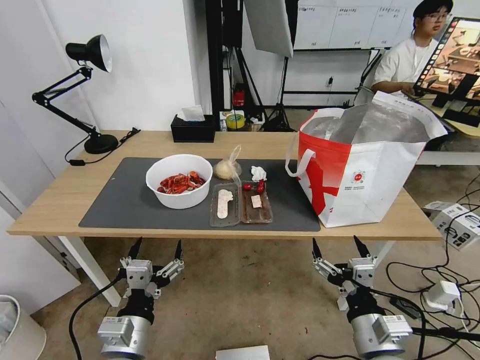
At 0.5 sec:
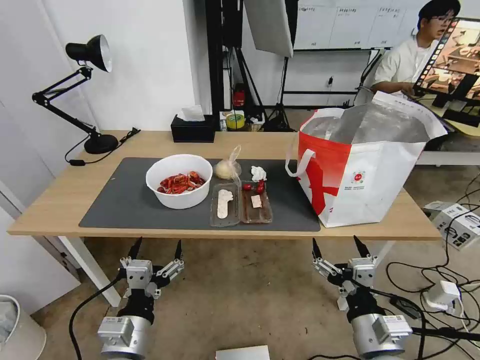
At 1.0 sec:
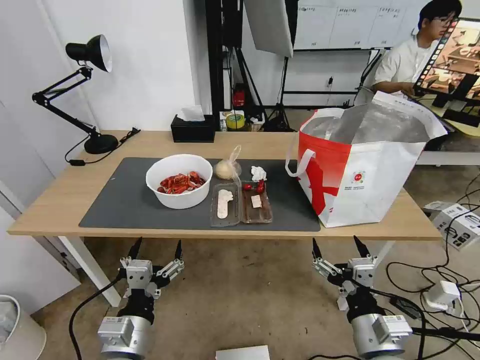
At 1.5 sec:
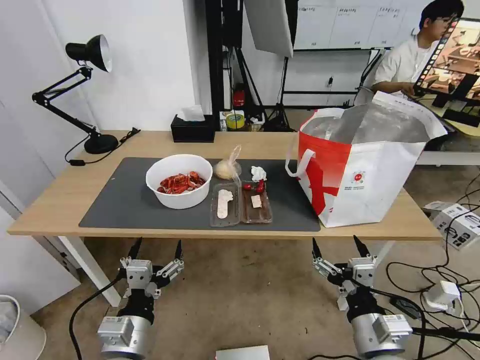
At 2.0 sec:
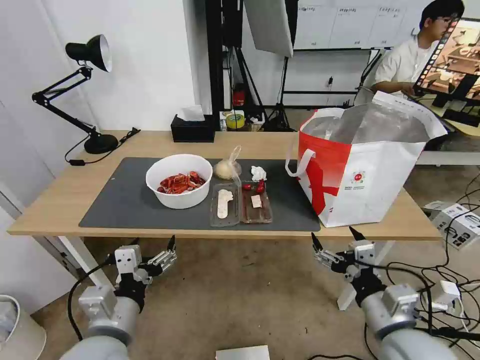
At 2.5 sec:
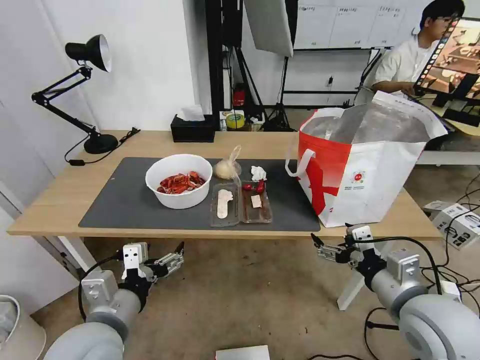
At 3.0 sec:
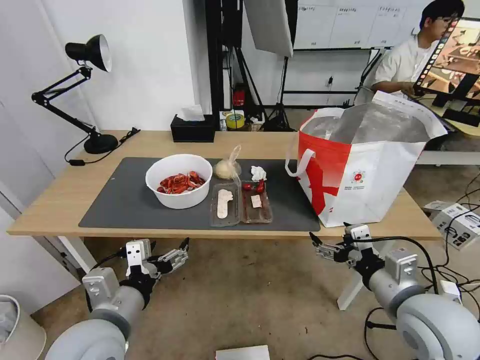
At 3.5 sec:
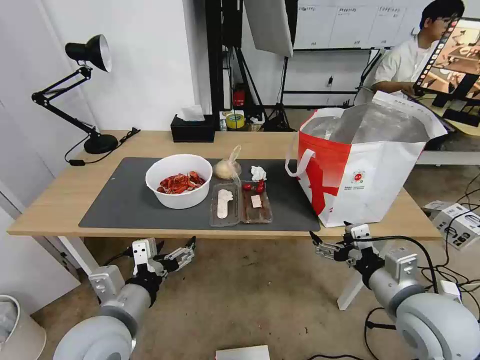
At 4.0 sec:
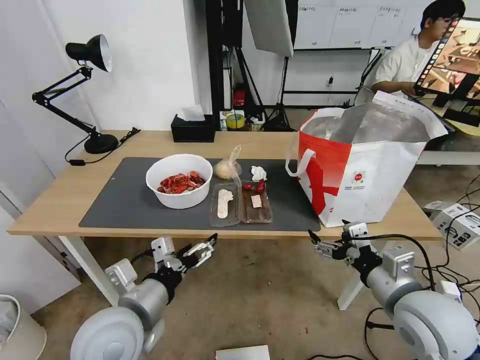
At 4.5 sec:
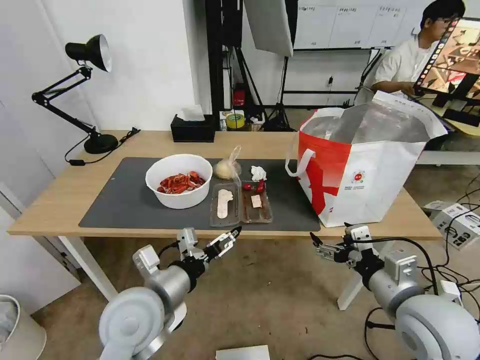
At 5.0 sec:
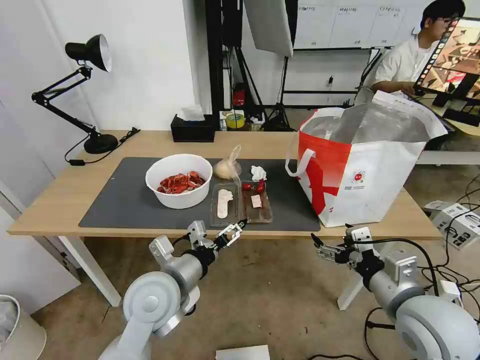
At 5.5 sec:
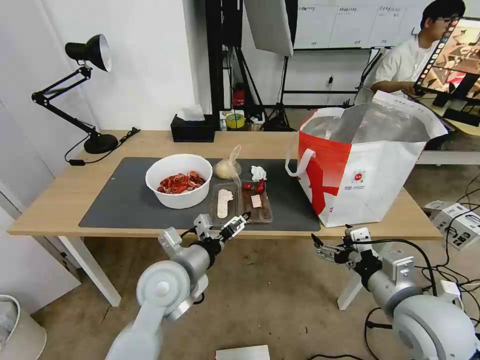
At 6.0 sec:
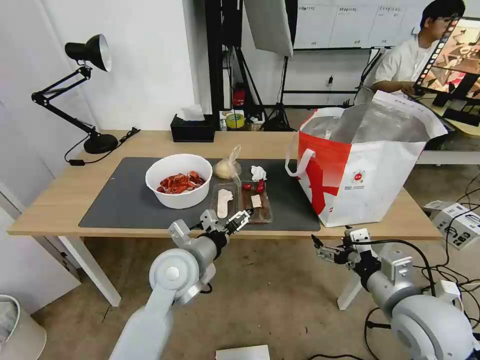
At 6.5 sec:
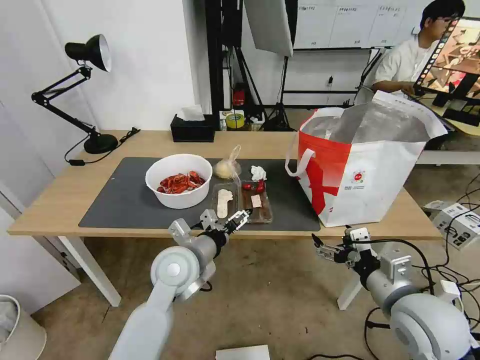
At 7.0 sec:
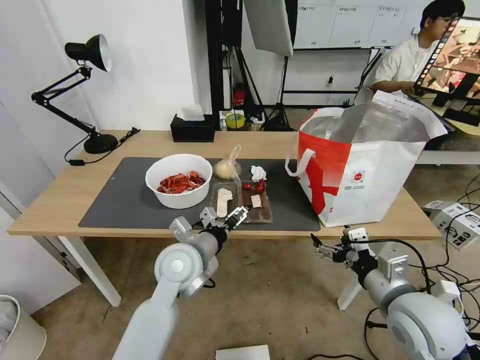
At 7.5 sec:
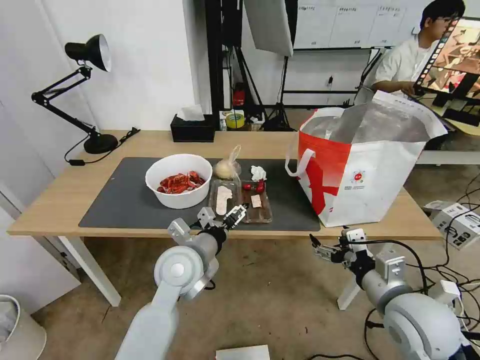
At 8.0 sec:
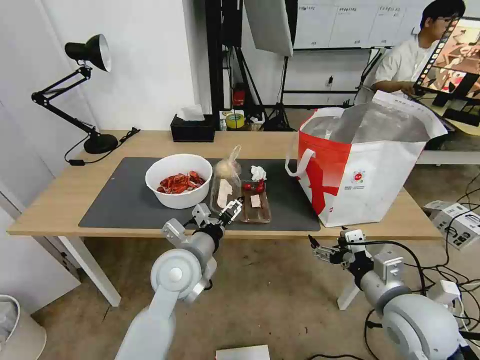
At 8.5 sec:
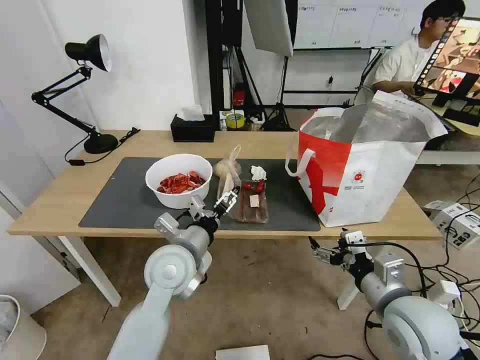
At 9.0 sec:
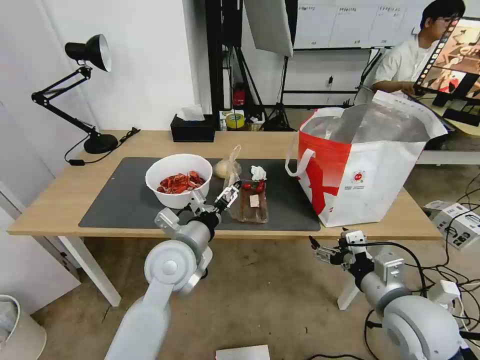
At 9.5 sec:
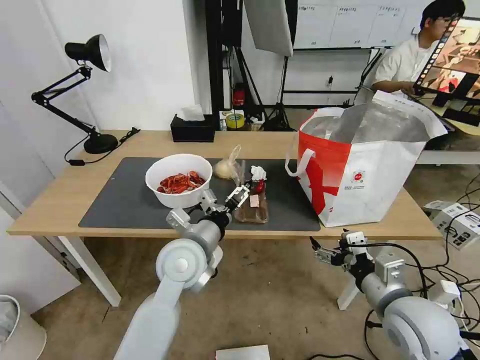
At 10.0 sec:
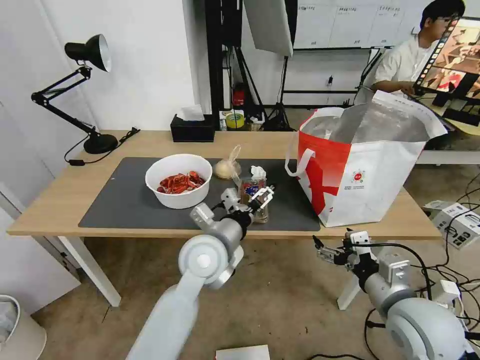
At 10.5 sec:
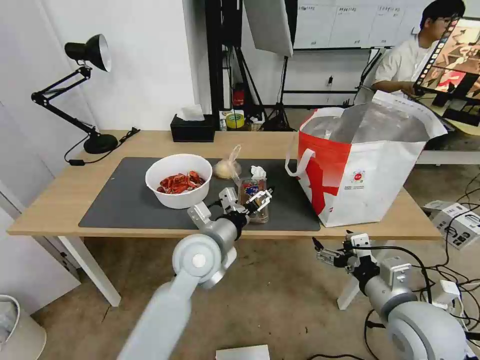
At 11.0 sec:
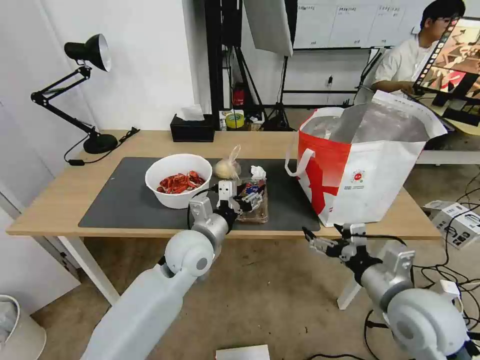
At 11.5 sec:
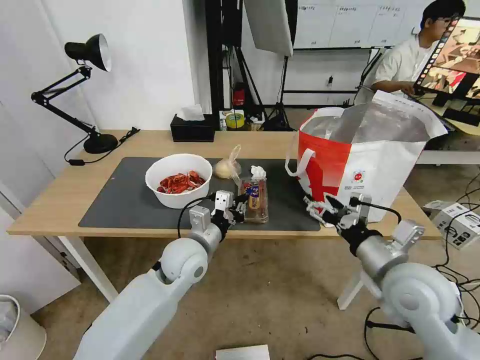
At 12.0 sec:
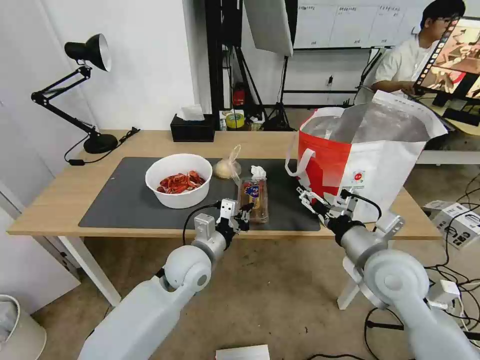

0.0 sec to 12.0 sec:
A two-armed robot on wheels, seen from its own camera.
Task of the whole recording: Pick up the trash from the table and place it into the takeout bag.
2.0 sec to 4.0 sec: The left gripper changes place by approximately 5 cm, while the right gripper changes place by roughly 5 cm.
4.0 sec to 6.0 sec: The left gripper travels forward and to the right by some 15 cm.
6.0 sec to 8.0 sec: The grippers make only small movements.
8.0 sec to 10.0 sec: The left gripper moves to the right, roughly 5 cm.
10.0 sec to 12.0 sec: The left gripper shifts roughly 5 cm downward, and closes up, while the right gripper shifts approximately 10 cm forward.

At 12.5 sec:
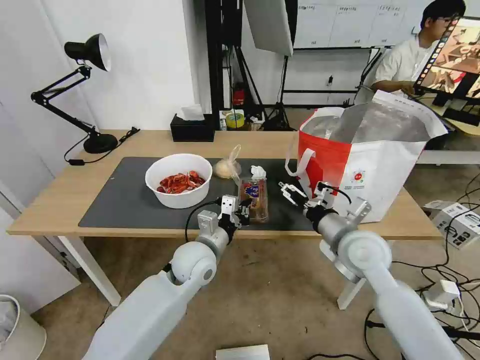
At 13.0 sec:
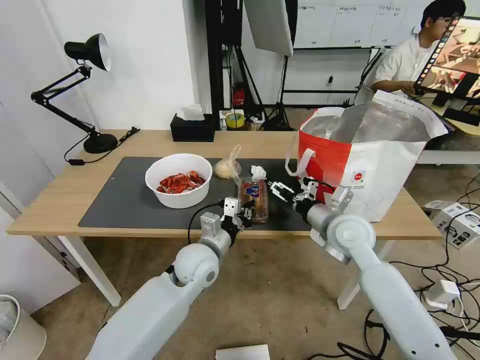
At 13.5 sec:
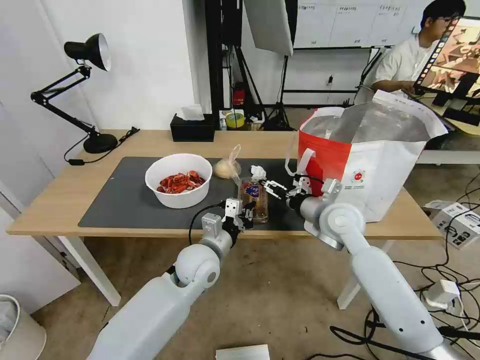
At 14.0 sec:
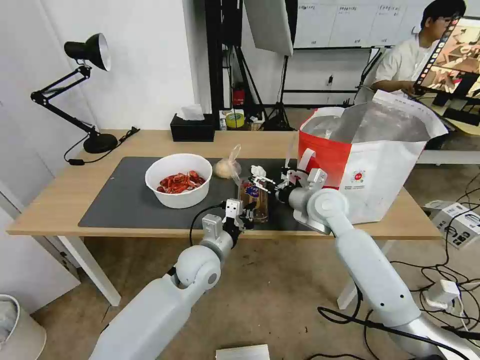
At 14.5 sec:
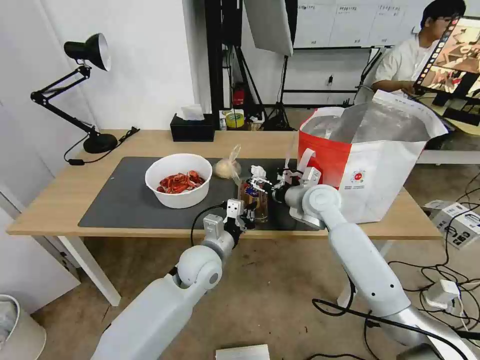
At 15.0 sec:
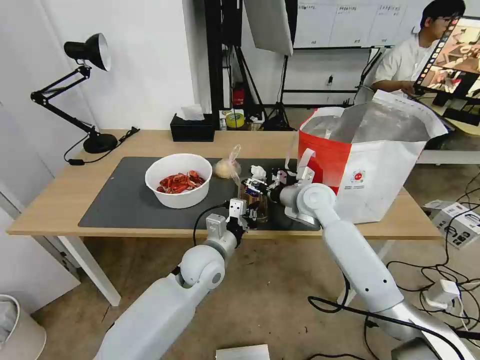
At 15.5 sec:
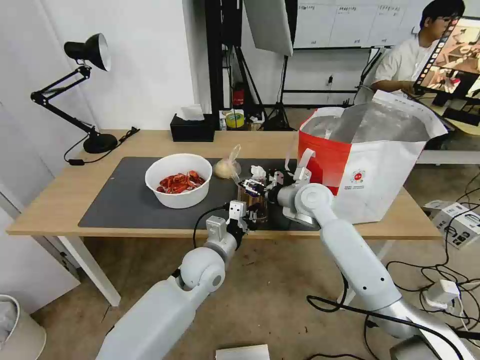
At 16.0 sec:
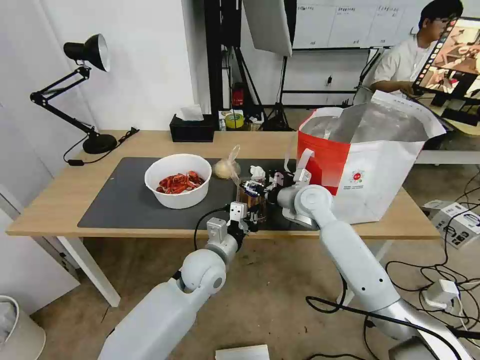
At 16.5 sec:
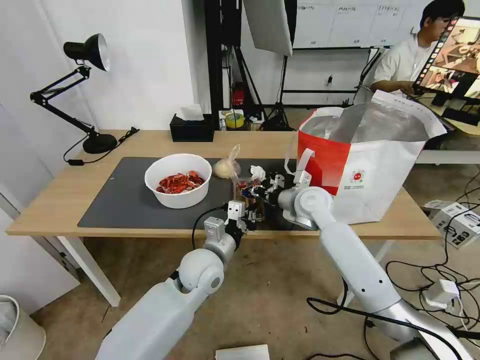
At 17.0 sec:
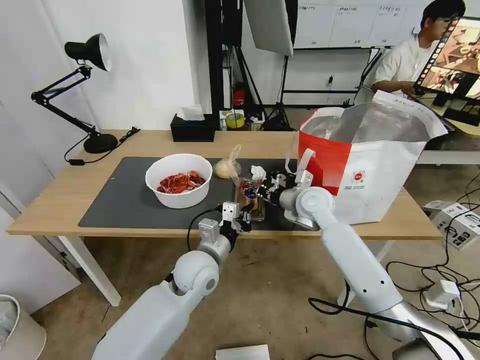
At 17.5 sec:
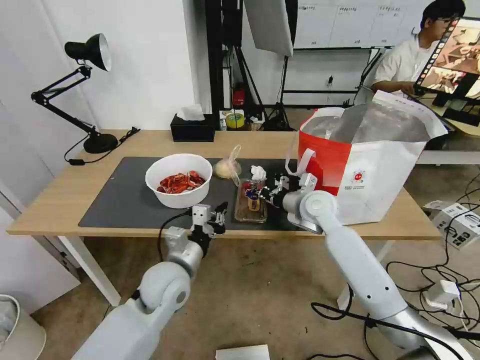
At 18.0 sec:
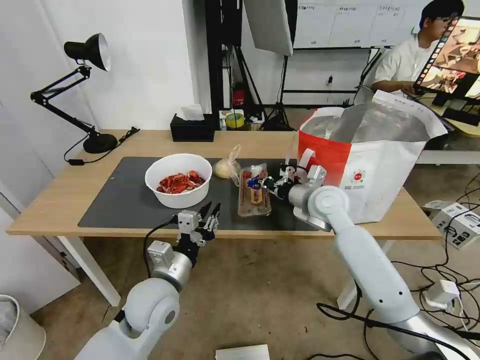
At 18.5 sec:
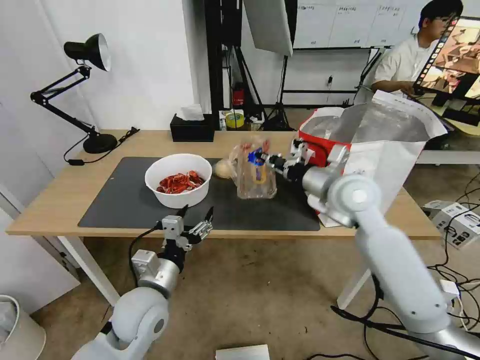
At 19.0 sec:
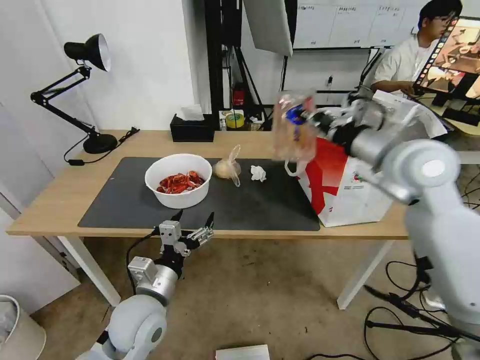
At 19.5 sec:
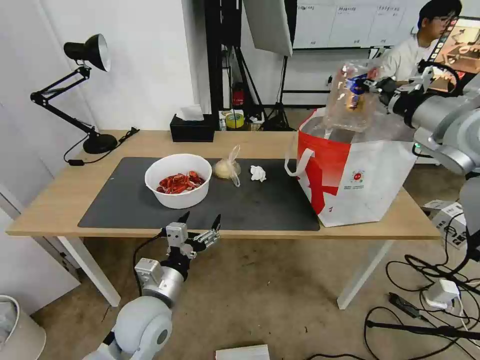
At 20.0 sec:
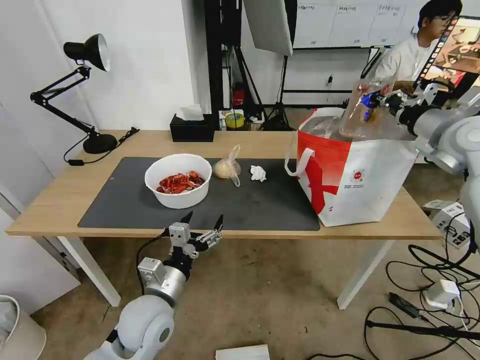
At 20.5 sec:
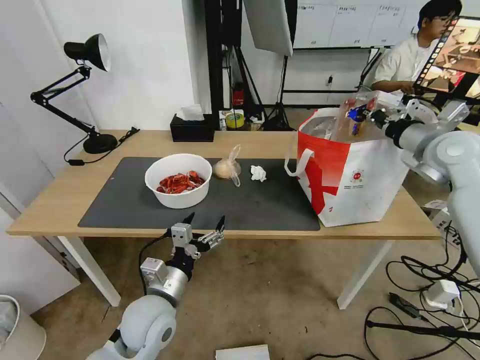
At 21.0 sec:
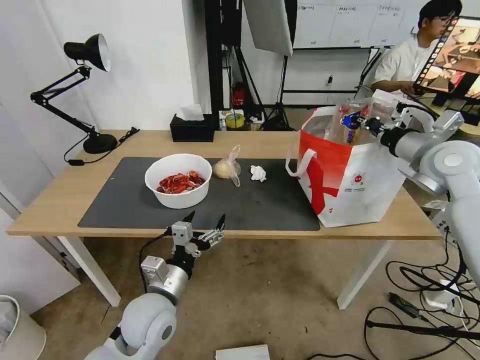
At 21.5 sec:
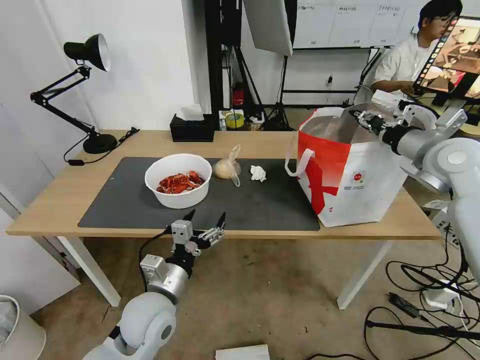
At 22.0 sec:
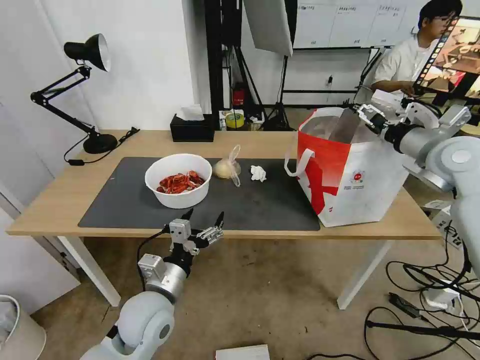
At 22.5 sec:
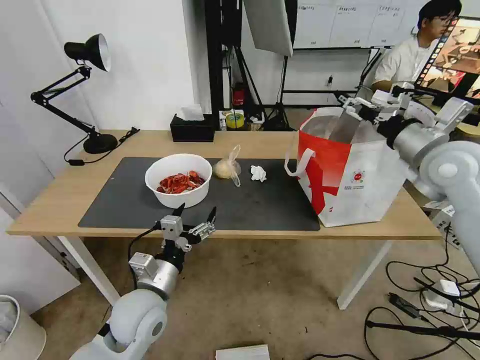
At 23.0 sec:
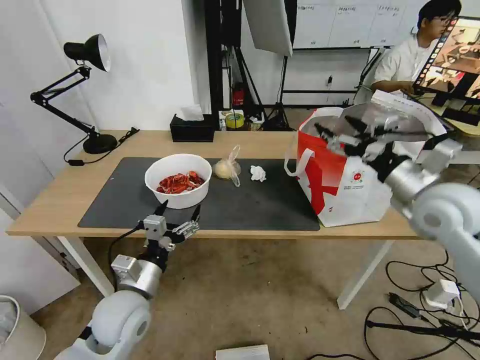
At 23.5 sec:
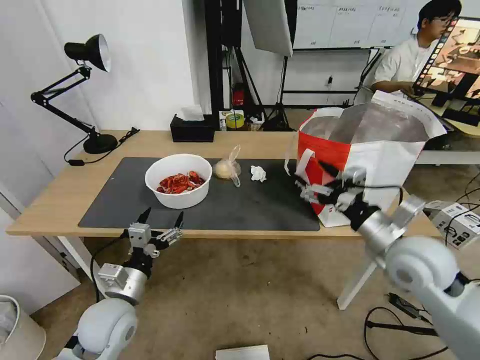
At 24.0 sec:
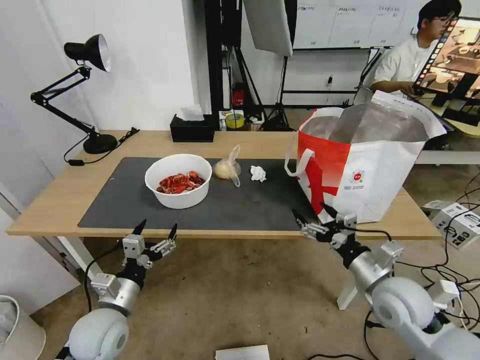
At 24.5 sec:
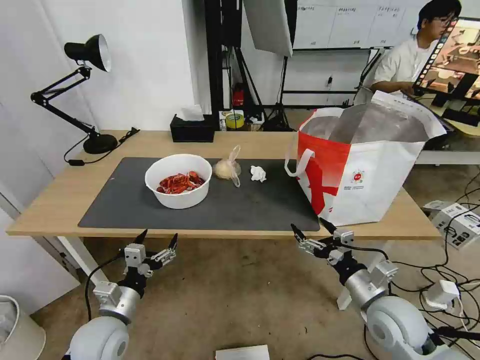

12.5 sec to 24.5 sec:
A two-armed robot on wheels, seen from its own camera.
Task of the whole recording: Pick up the trash from the table and place it into the takeout bag.
12.5 sec to 14.5 sec: The right gripper heads forward, covering approximately 15 cm.
14.5 sec to 16.5 sec: The right gripper closes its fingers.
16.5 sec to 18.5 sec: The left gripper is displaced to the left and backward by about 15 cm, and opens. The right gripper shifts roughly 15 cm upward and backward.
18.5 sec to 20.5 sec: The right gripper shifts some 20 cm to the right.
20.5 sec to 22.5 sec: The right gripper shifts roughly 5 cm backward, and opens its fingers.
22.5 sec to 24.5 sec: The right gripper is displaced downward and backward by some 30 cm. Meanwhile the left gripper goes approximately 10 cm to the left and downward.

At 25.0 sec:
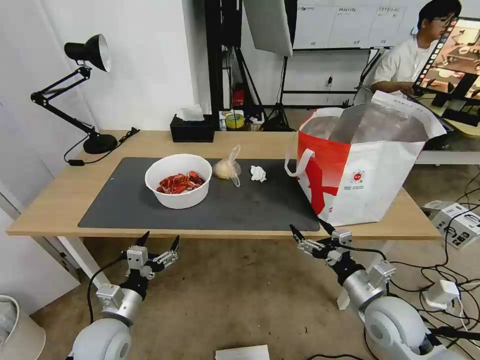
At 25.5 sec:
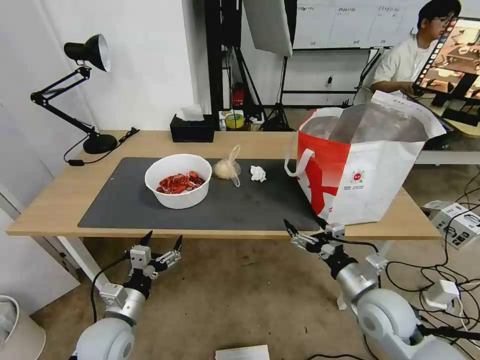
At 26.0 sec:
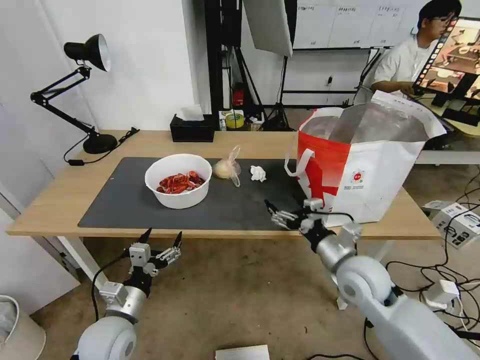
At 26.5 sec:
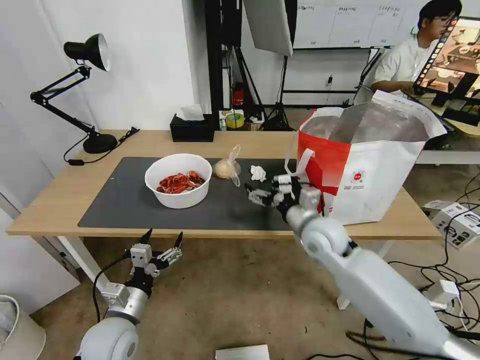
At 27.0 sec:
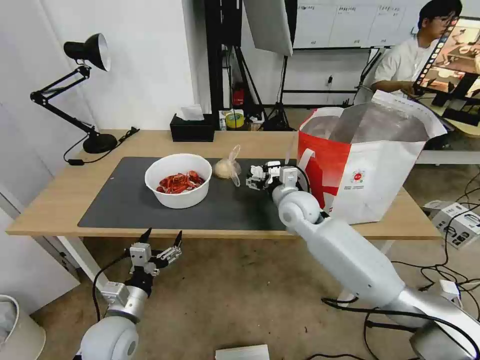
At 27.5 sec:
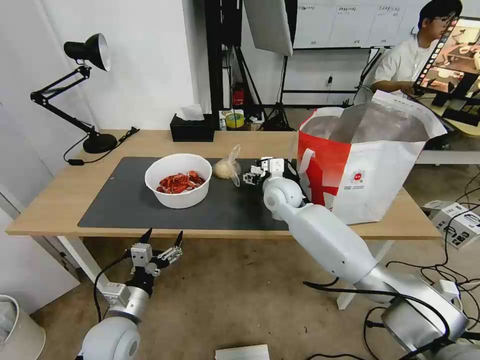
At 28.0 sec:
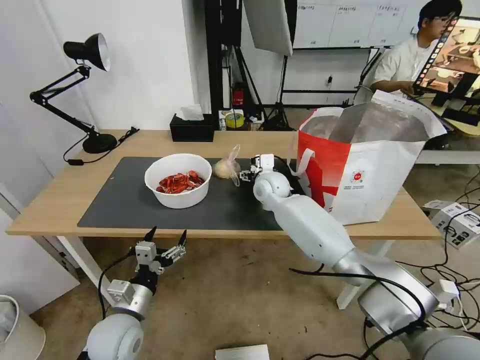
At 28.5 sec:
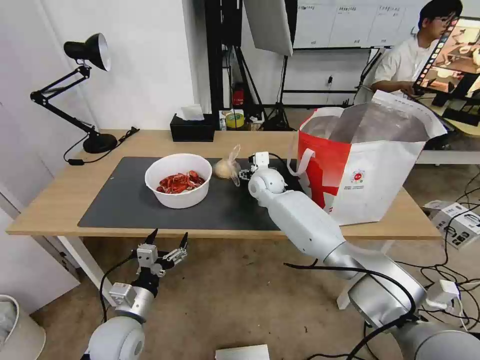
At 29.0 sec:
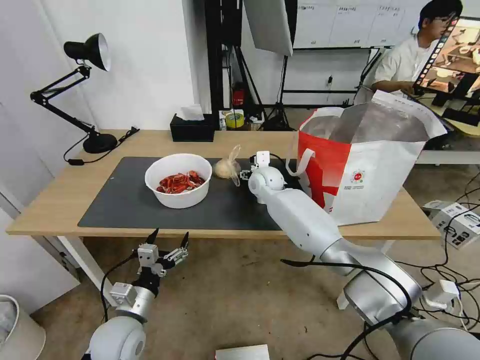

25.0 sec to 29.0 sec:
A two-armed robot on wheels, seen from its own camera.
Task of the whole recording: Pick up the trash from the table and place it into the takeout bag.
25.0 sec to 27.0 sec: The right gripper is displaced forward and to the left by about 30 cm.
27.0 sec to 29.0 sec: The right gripper travels forward and to the left by about 15 cm.
